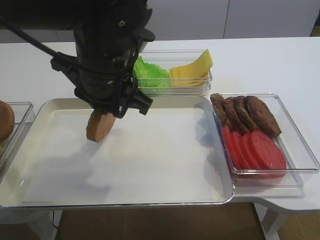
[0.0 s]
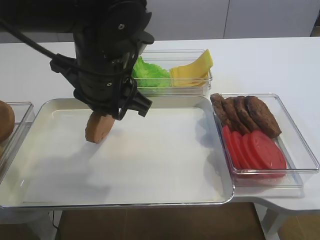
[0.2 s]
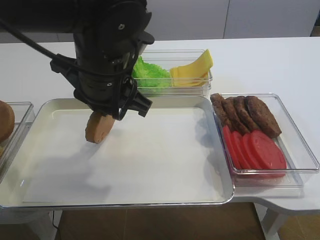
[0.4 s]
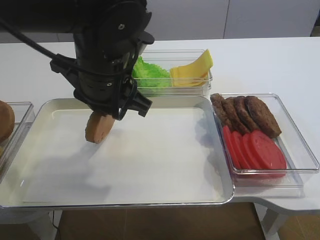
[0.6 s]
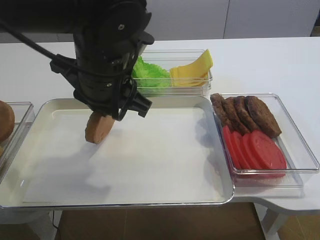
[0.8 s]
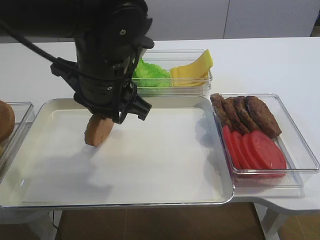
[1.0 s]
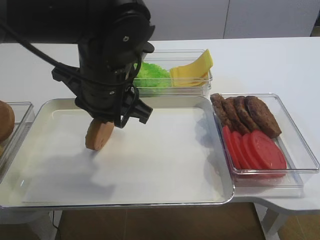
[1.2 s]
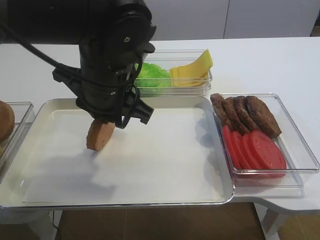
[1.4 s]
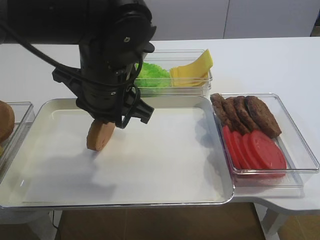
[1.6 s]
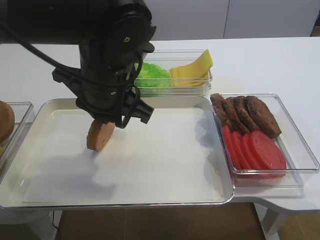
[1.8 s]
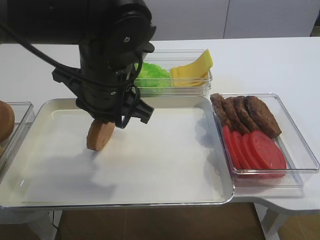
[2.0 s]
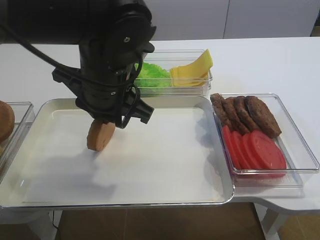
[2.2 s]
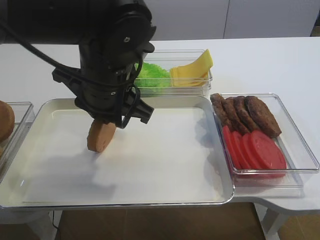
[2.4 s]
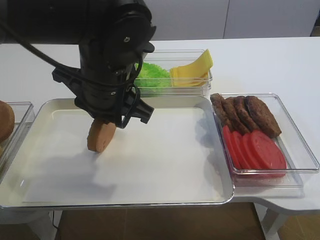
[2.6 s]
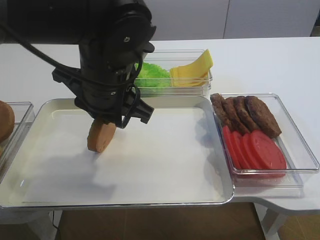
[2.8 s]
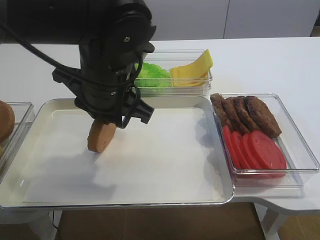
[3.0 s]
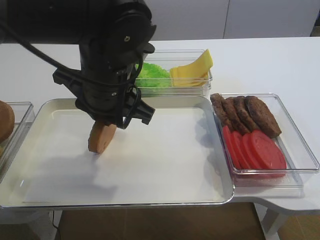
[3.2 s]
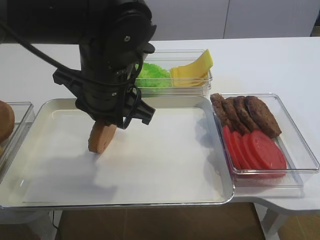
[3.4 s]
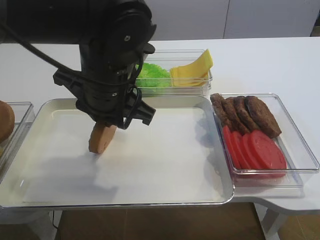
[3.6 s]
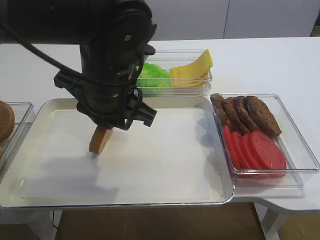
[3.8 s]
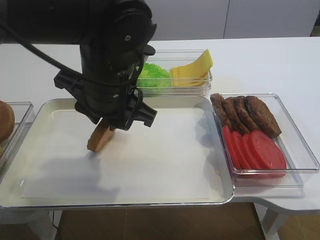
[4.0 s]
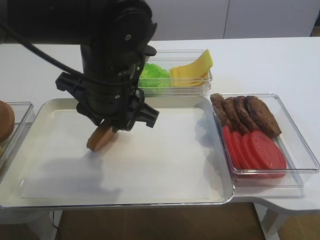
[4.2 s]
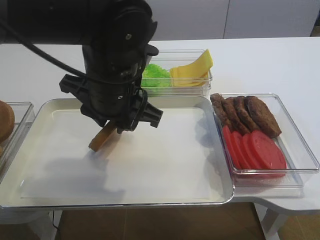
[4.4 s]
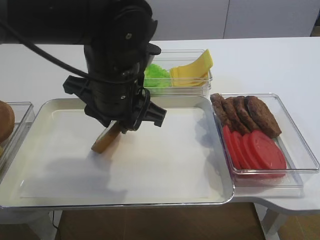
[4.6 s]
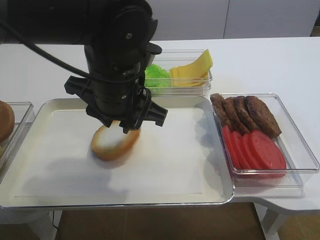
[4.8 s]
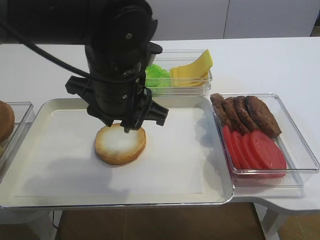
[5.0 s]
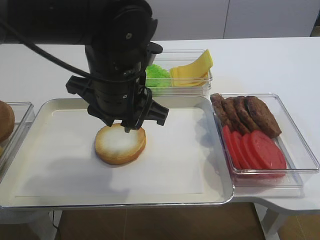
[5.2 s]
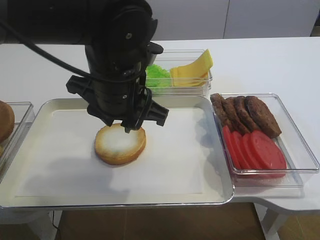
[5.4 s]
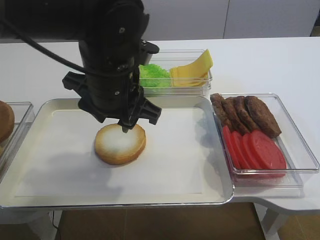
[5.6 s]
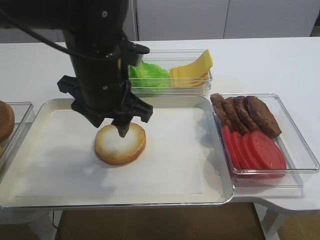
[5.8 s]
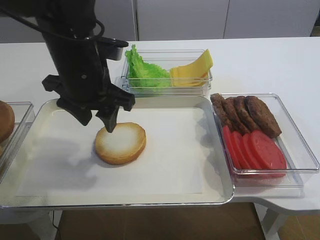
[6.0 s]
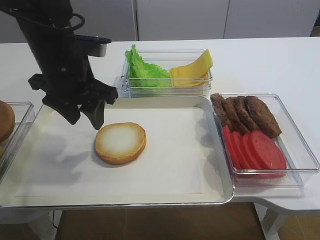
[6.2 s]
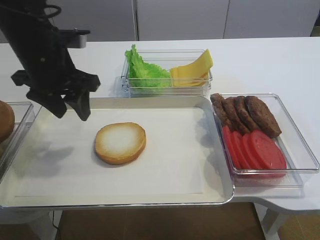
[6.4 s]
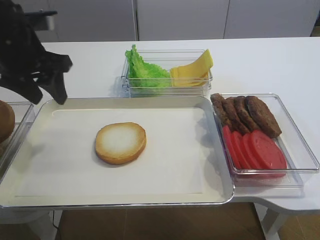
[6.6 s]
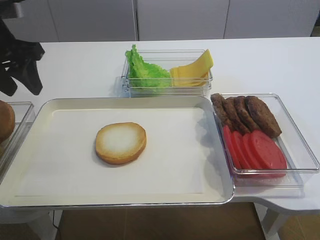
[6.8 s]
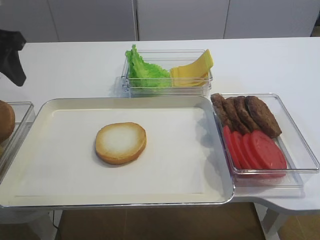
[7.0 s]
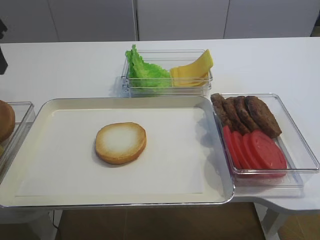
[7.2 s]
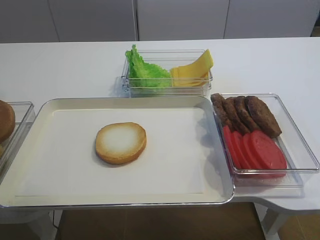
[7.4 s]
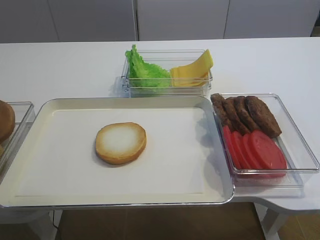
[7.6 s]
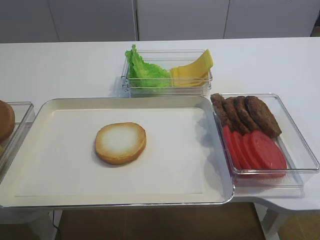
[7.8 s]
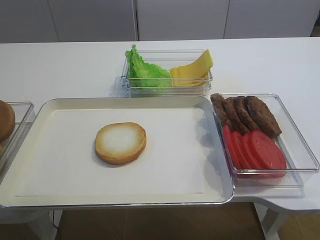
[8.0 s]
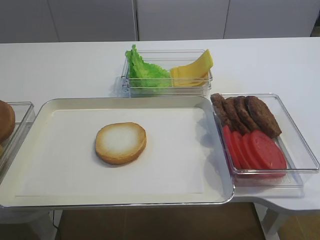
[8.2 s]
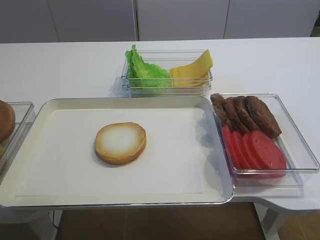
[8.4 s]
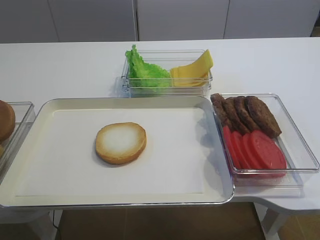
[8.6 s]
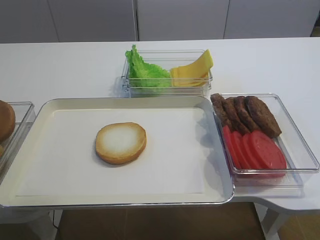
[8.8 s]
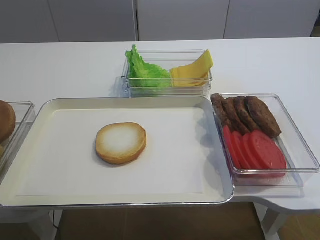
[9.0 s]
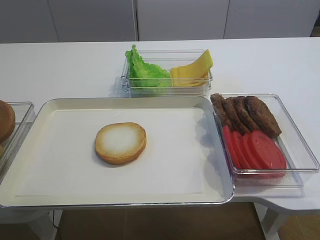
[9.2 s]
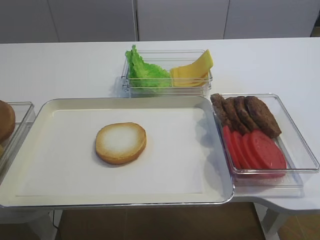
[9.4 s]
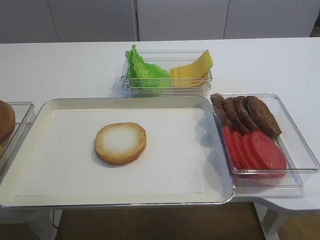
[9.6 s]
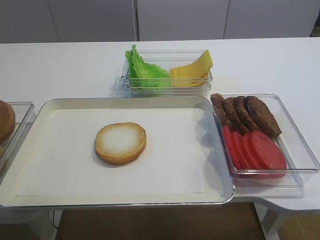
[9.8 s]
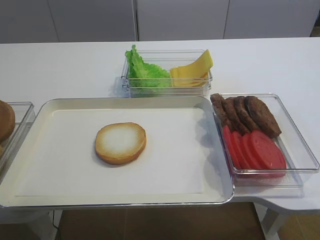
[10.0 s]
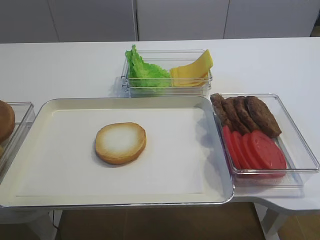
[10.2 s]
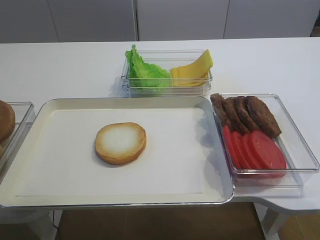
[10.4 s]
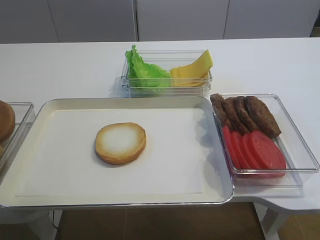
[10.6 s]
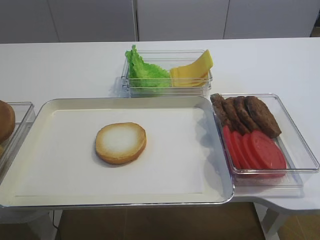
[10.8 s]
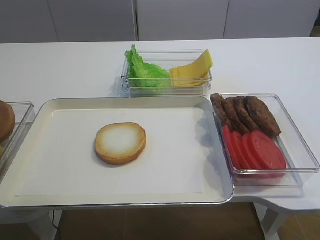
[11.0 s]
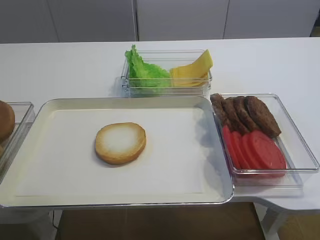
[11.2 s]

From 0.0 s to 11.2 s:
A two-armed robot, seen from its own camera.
Step, from 0.0 s to 6.0 s: Place the bread slice on the tray with the left gripper.
From 0.0 s to 1.6 s: The two grippers keep their place.
From 1.6 s to 3.2 s: Both grippers stay put.
From 3.2 s to 4.8 s: The grippers make only small movements.
From 4.8 s to 6.4 s: The left gripper shifts about 15 cm to the left and forward, and opens its fingers.
From 6.4 s to 8.0 s: The left gripper shifts approximately 25 cm backward, to the left and upward.
From 9.6 s to 11.2 s: Neither gripper changes place.

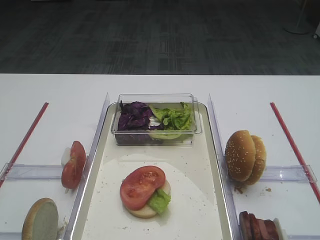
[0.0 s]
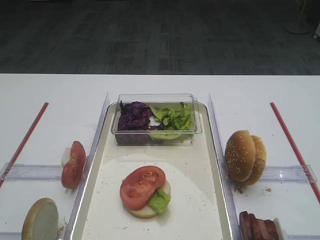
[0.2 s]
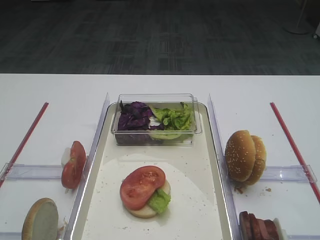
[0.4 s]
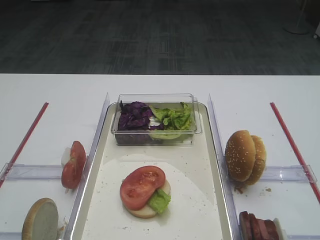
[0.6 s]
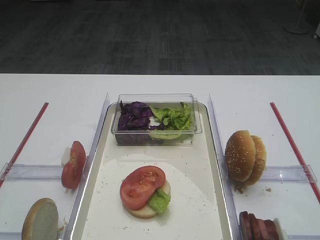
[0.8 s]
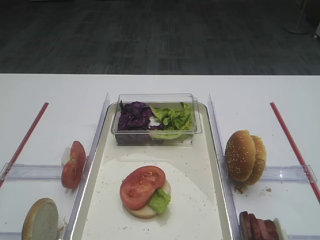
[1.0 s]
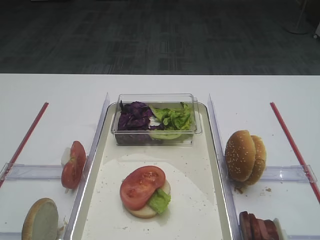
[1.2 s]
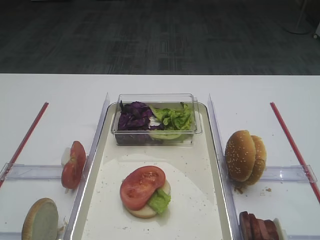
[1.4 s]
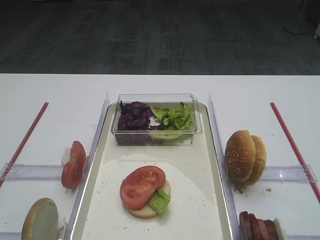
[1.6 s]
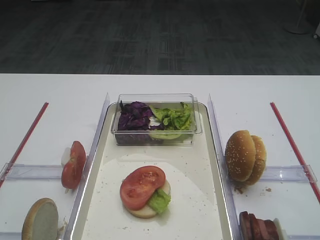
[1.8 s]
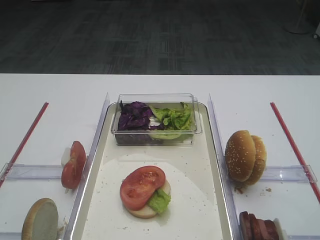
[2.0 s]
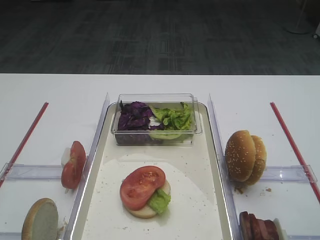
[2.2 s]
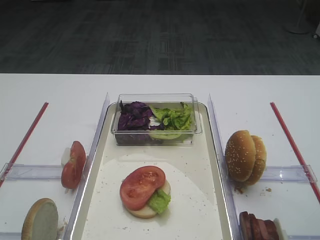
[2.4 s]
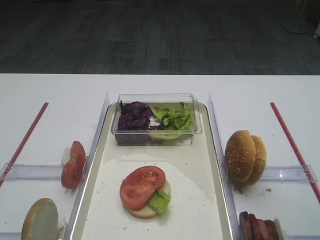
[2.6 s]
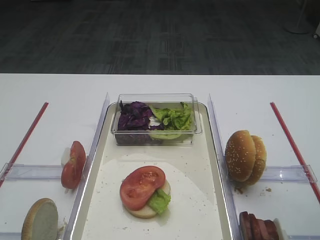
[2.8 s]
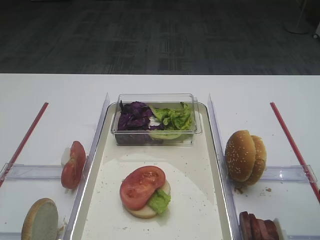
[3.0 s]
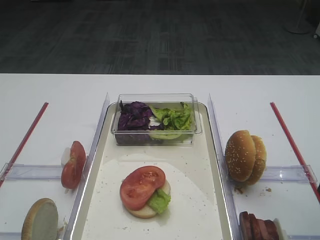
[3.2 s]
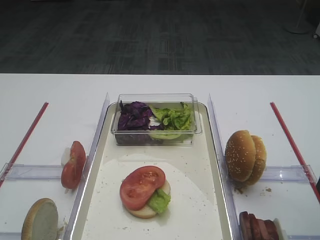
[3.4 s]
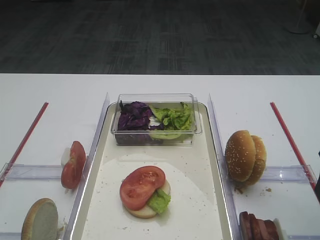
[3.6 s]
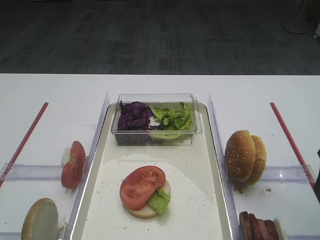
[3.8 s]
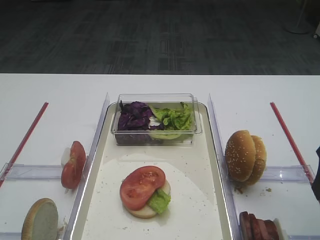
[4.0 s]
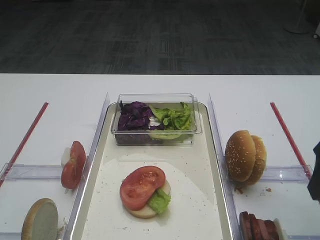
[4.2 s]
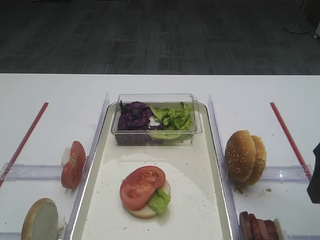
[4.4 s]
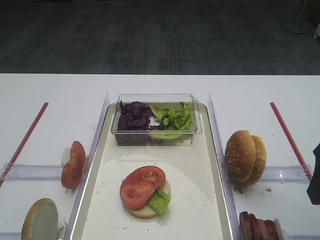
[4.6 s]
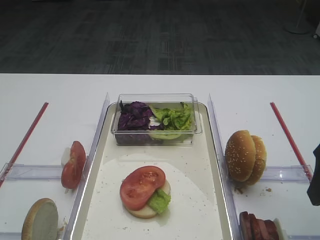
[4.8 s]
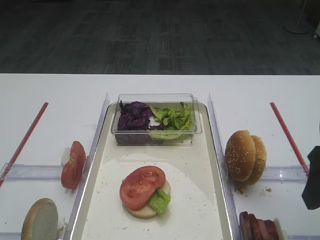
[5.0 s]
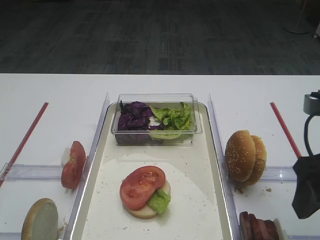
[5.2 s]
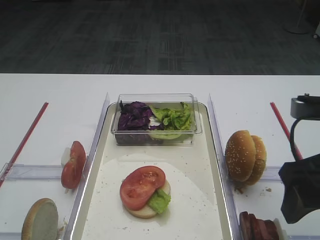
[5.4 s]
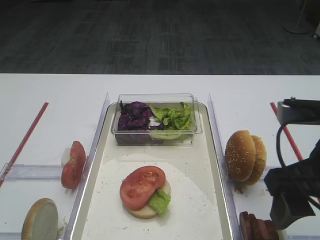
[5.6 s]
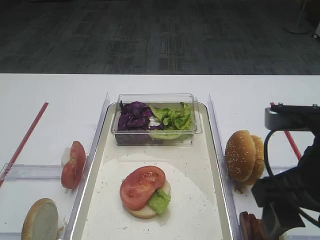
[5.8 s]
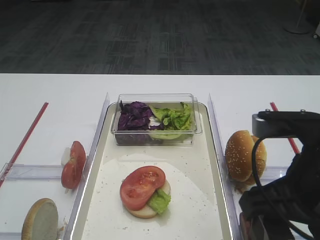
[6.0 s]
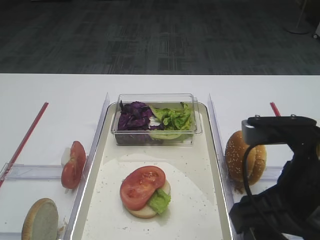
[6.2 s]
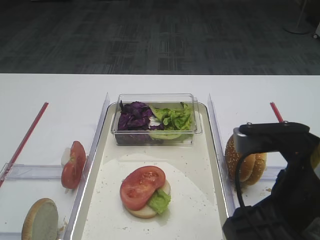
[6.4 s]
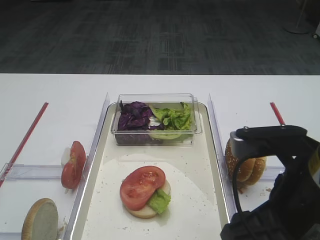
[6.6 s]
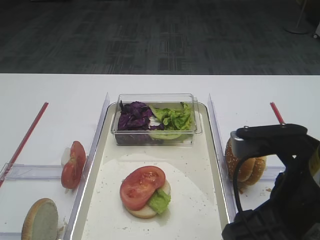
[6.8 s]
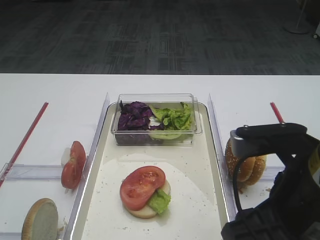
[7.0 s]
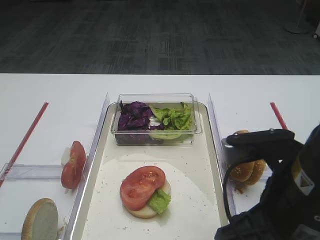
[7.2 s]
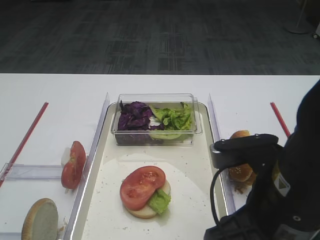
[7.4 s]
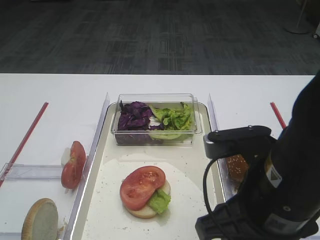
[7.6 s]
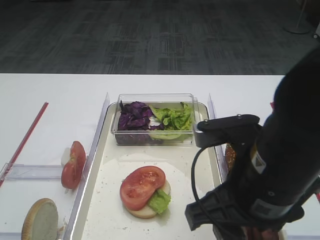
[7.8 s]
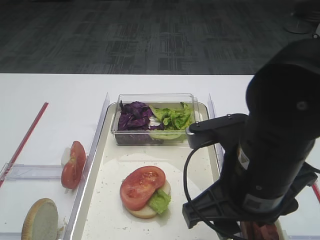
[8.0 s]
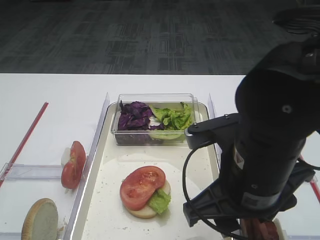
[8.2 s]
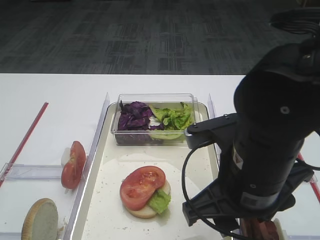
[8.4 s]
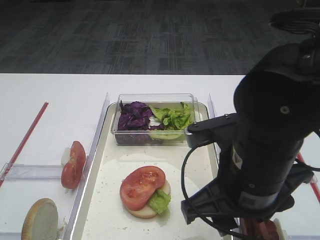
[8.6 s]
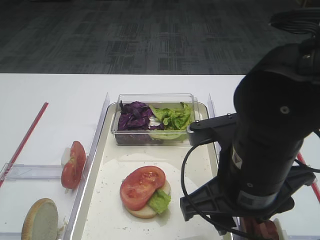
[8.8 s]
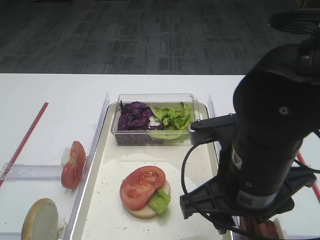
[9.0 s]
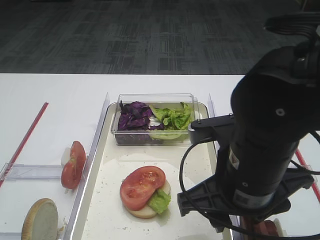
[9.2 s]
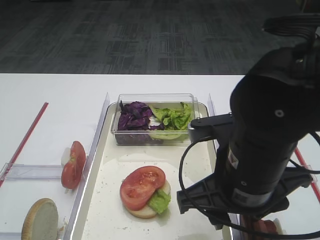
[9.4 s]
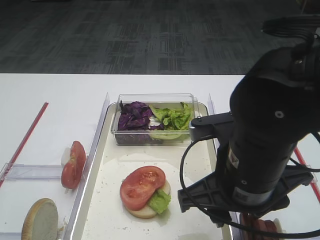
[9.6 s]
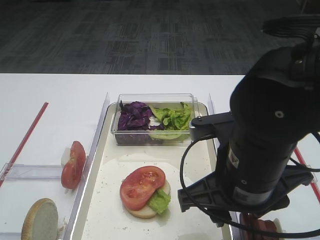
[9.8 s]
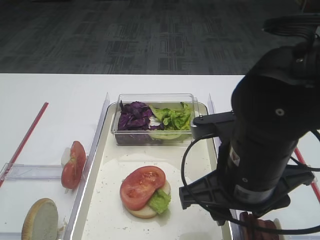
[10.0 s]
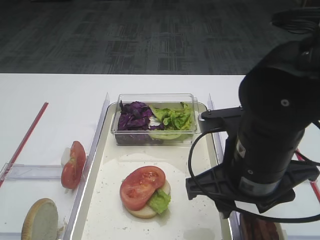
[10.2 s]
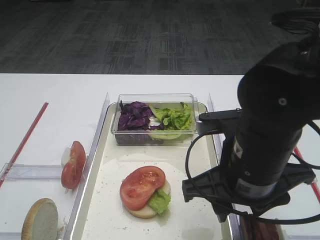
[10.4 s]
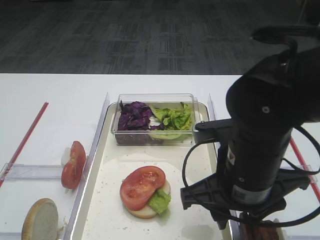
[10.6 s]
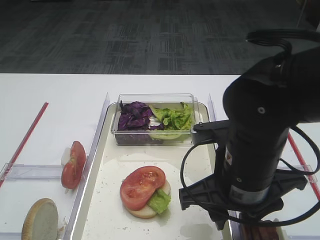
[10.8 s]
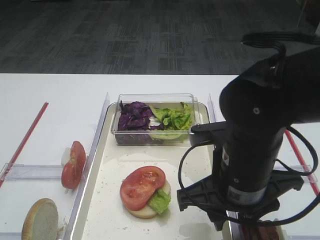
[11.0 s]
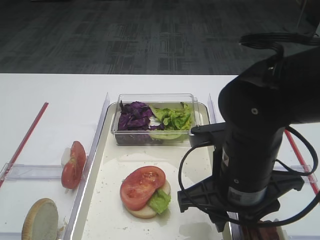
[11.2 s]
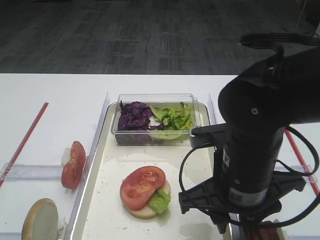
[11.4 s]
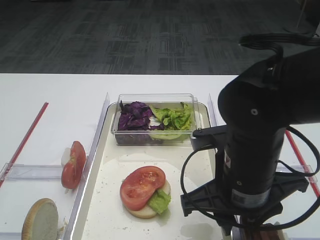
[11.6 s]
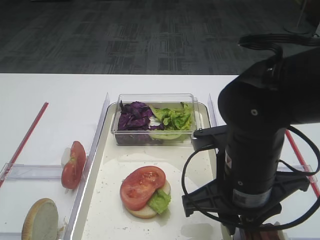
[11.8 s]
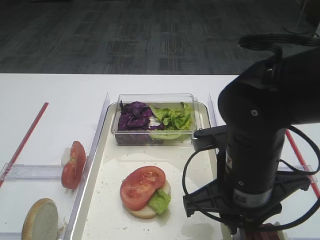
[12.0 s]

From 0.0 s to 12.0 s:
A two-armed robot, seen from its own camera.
From 1.6 s to 3.0 s: The right gripper travels forward and downward by approximately 15 cm.
From 3.0 s to 4.4 s: Both grippers stay about where they are.
From 4.4 s to 6.0 s: The right gripper moves to the left, roughly 10 cm.
From 6.0 s to 7.6 s: The right gripper shifts by about 5 cm.
From 7.6 s to 10.4 s: There are only small adjustments of the grippers.
From 10.4 s to 12.0 s: The grippers move only a little.
